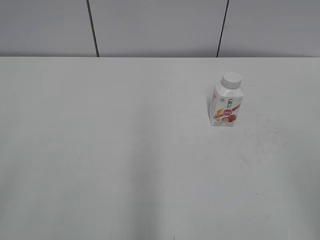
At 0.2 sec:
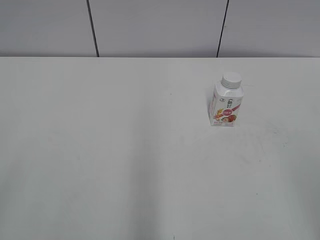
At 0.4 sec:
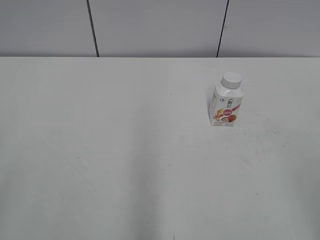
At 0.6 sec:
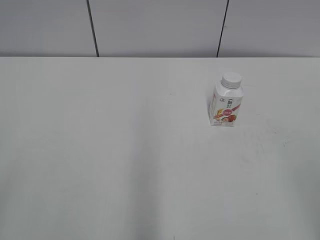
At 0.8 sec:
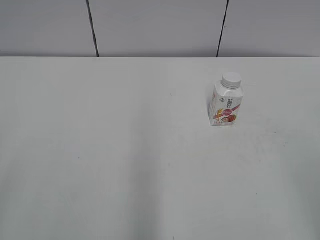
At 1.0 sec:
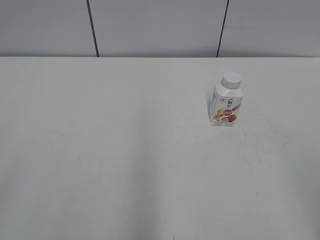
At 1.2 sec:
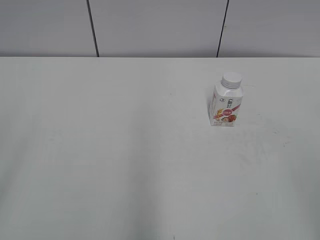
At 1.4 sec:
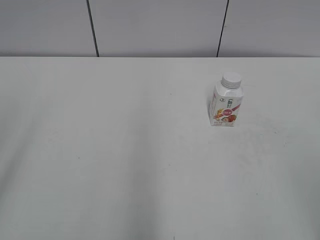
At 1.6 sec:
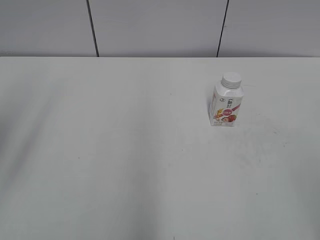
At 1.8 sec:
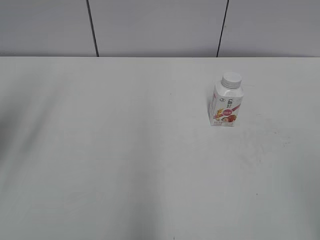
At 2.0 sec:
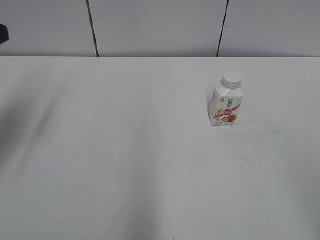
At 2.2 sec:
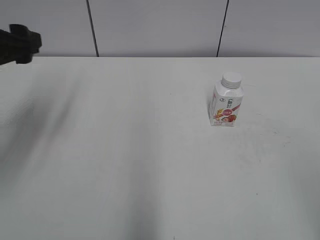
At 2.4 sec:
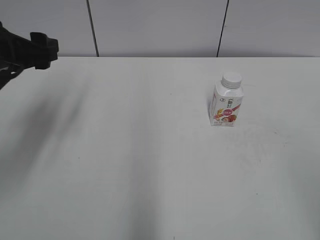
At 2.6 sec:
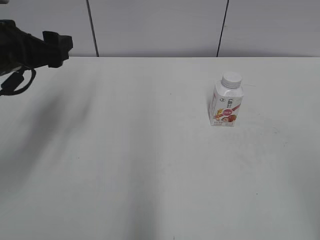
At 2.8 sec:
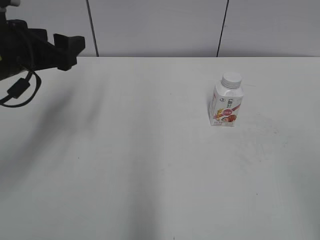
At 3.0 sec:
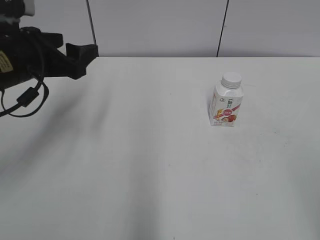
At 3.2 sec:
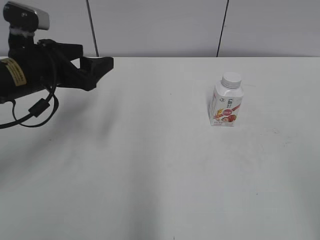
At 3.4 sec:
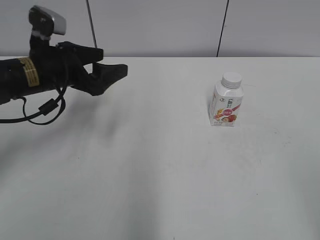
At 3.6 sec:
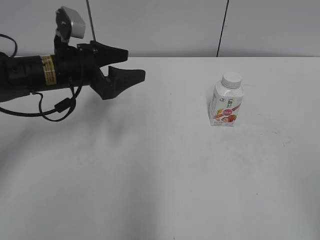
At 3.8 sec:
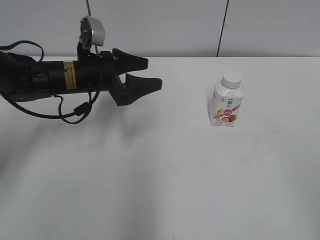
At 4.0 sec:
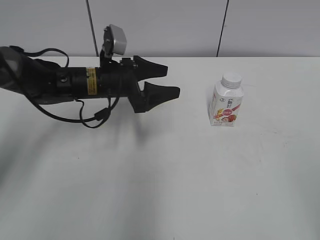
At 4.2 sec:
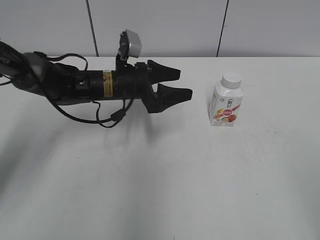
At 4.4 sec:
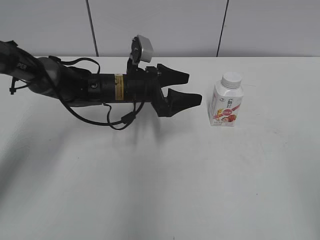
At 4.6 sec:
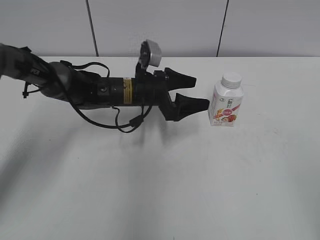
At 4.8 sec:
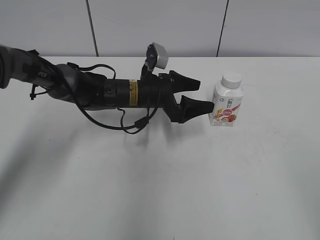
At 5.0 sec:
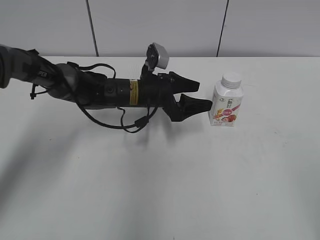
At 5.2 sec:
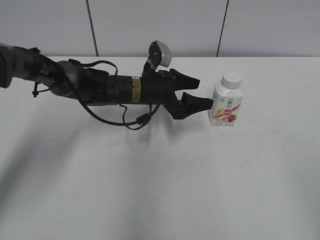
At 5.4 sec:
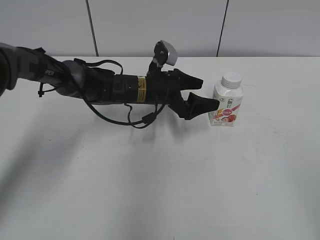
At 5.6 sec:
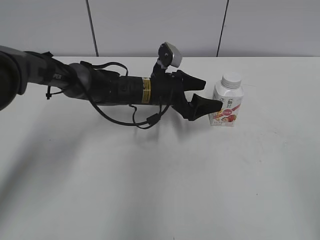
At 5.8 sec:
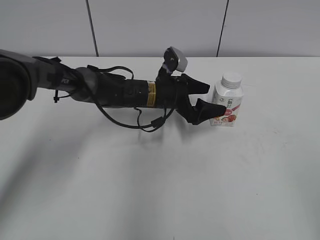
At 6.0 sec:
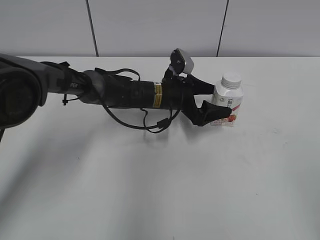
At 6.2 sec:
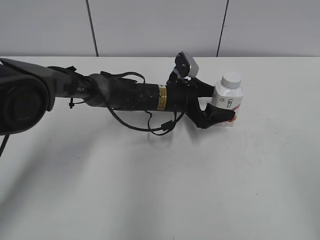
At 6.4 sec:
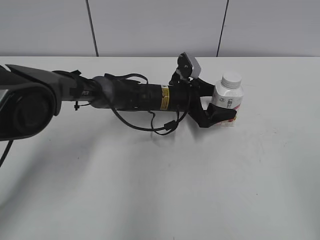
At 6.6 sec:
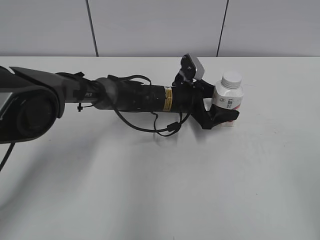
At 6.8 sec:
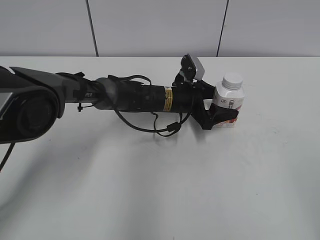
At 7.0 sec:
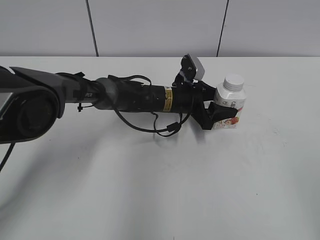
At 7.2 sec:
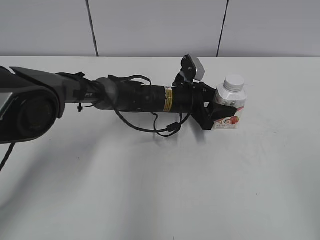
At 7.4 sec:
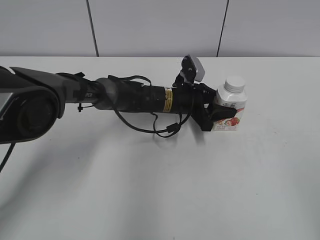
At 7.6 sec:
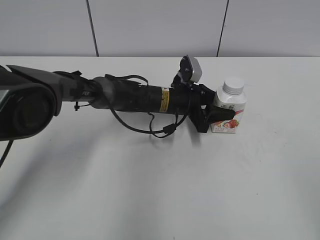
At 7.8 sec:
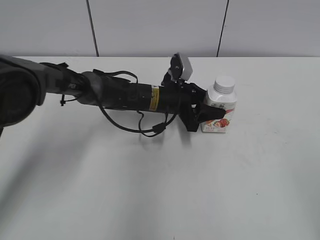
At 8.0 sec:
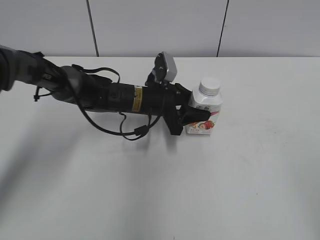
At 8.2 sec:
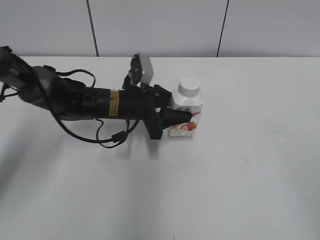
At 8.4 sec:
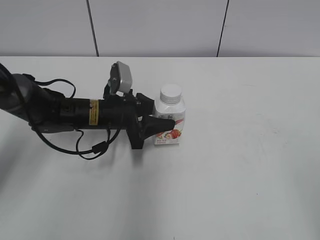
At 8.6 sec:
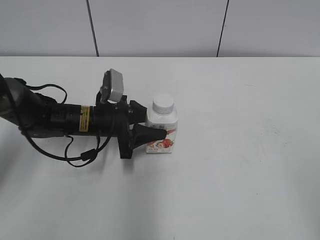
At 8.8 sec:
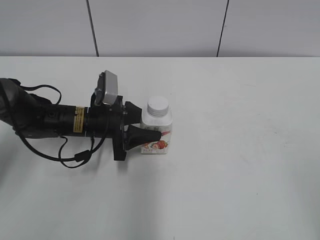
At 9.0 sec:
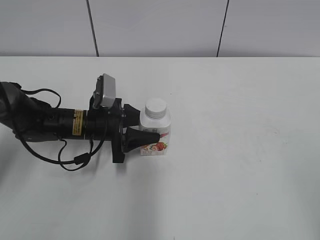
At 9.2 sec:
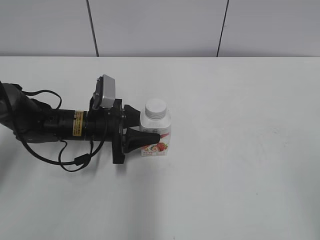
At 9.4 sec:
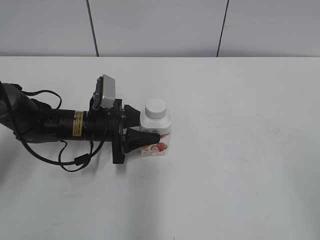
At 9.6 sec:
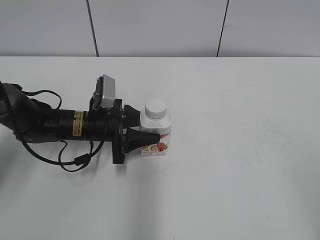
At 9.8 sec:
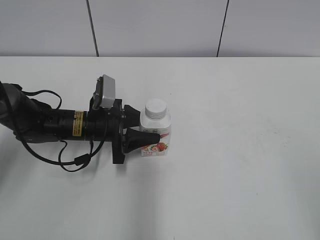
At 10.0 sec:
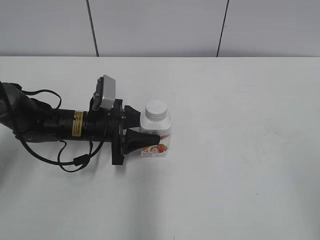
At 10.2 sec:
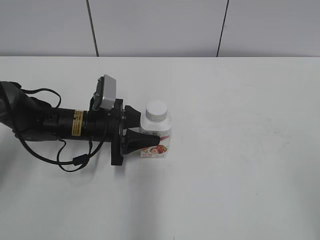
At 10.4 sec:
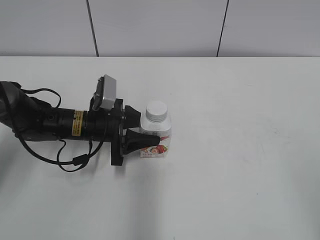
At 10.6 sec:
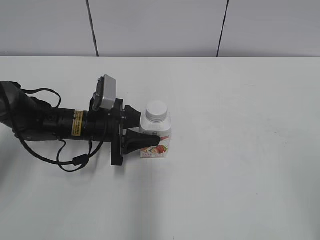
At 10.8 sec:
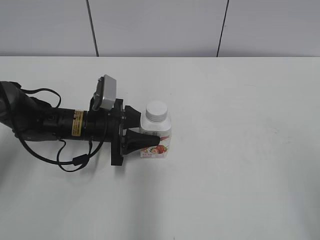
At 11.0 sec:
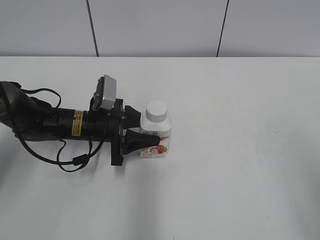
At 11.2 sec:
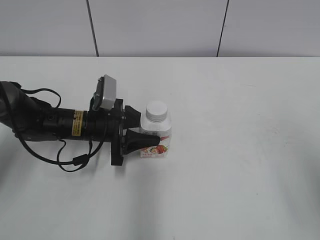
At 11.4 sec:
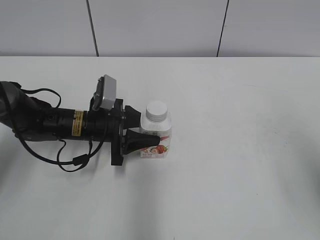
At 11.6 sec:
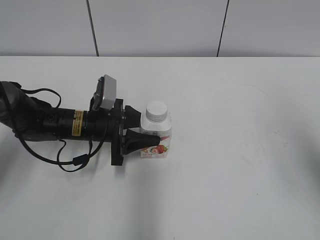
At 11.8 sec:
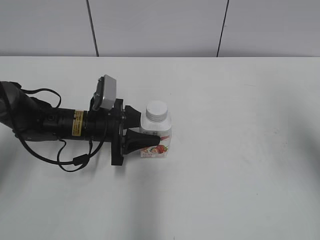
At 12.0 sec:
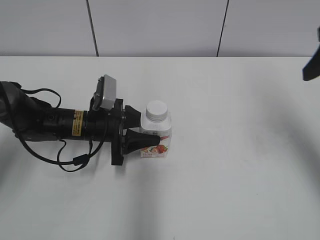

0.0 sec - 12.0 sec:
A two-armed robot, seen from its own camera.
Step, 0.0 sec - 7.0 sec: Grab the Yili Changqing with the left hand.
Step, 7.2 sec - 9.6 sec: Move the Yili Changqing from right to left.
1.6 sec - 3.0 sec: The left gripper travels forward, downward and to the right by approximately 25 cm.
3.0 sec - 4.4 sec: The left gripper is displaced to the right, downward and forward by about 20 cm.
4.4 sec - 6.0 sec: The left gripper is displaced to the right by approximately 5 cm.
6.0 sec - 7.6 sec: The left gripper closes up.
7.6 sec - 9.0 sec: The left gripper heads to the left and backward, covering some 20 cm.
9.0 sec - 10.4 sec: The two grippers keep their place.
10.4 sec - 12.0 sec: The right gripper goes roughly 25 cm forward.

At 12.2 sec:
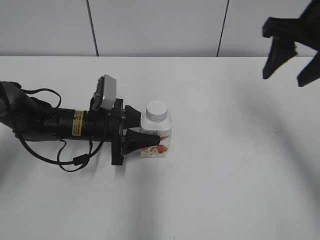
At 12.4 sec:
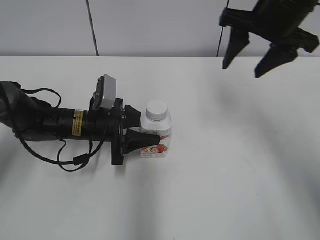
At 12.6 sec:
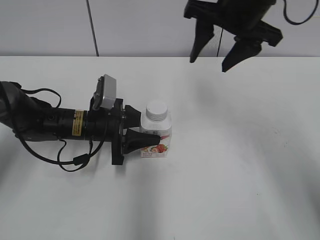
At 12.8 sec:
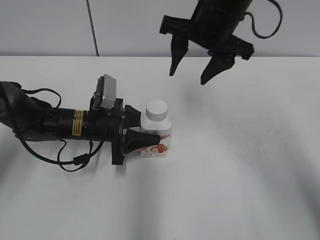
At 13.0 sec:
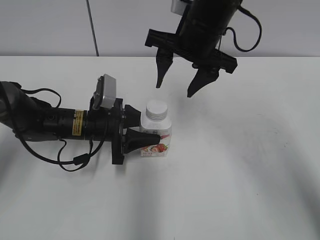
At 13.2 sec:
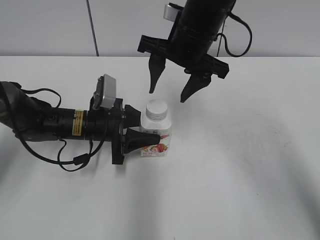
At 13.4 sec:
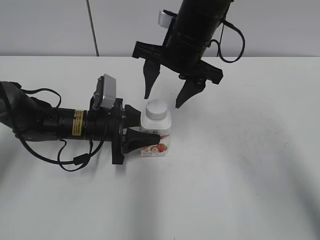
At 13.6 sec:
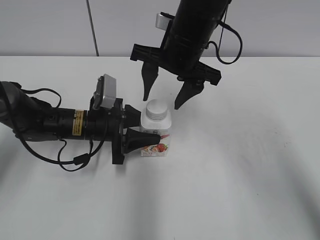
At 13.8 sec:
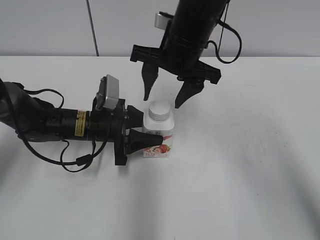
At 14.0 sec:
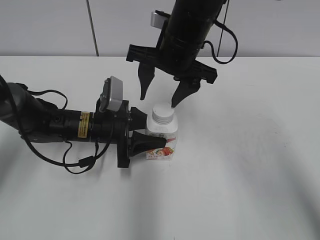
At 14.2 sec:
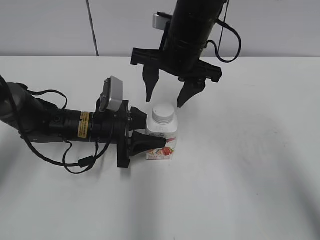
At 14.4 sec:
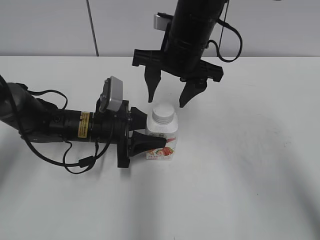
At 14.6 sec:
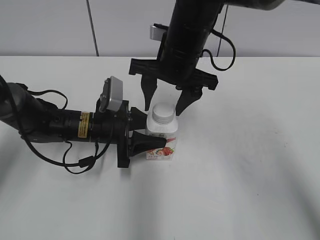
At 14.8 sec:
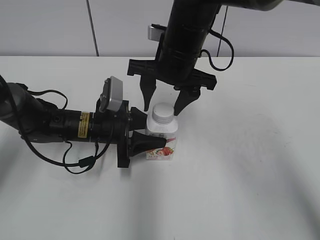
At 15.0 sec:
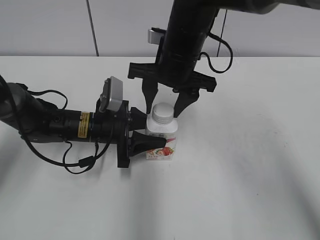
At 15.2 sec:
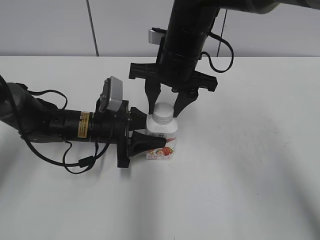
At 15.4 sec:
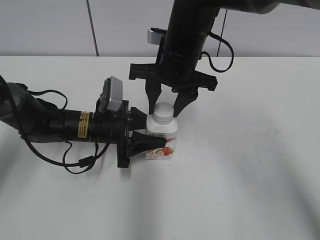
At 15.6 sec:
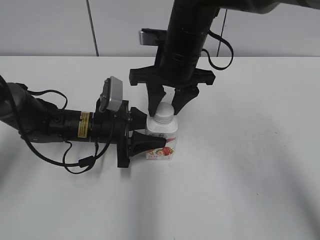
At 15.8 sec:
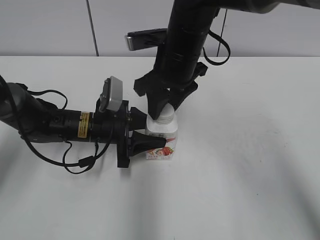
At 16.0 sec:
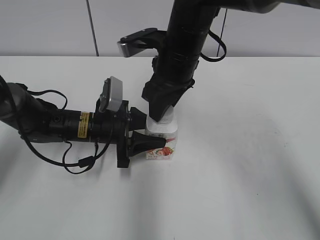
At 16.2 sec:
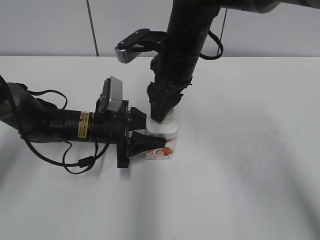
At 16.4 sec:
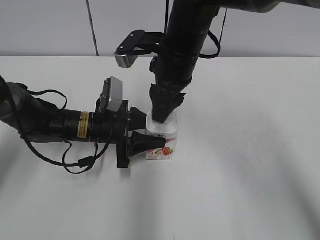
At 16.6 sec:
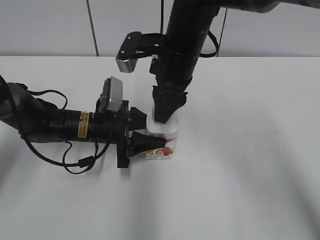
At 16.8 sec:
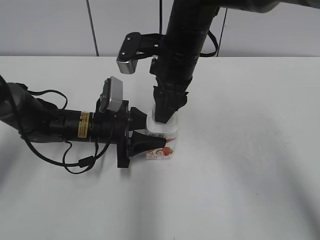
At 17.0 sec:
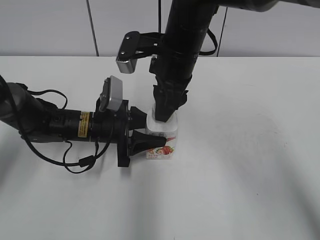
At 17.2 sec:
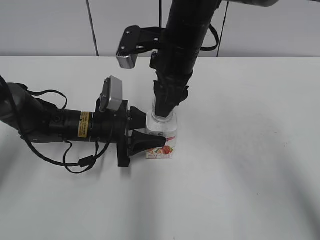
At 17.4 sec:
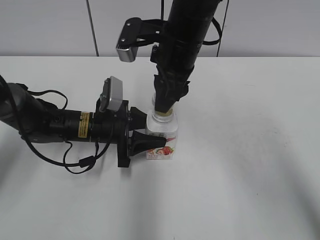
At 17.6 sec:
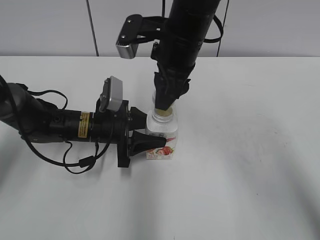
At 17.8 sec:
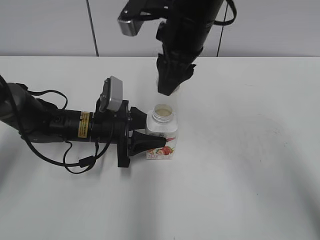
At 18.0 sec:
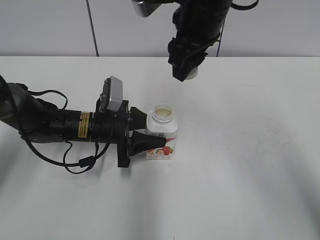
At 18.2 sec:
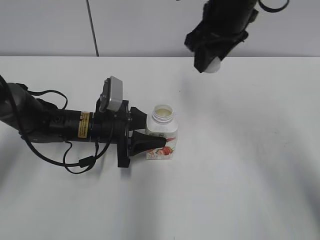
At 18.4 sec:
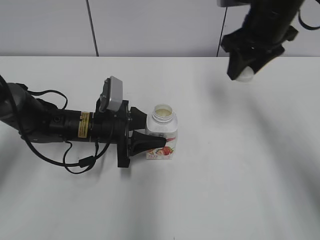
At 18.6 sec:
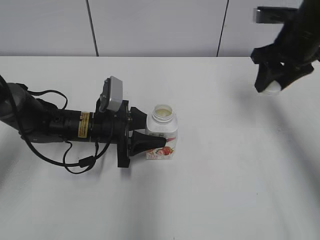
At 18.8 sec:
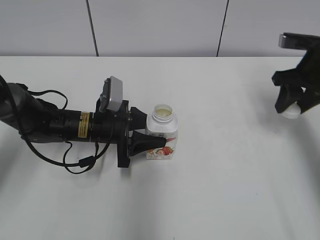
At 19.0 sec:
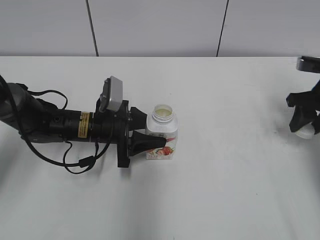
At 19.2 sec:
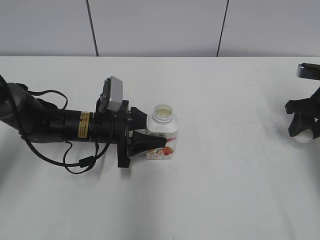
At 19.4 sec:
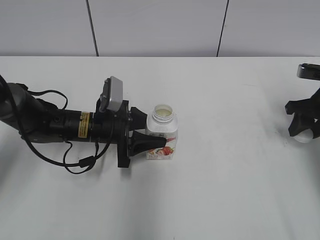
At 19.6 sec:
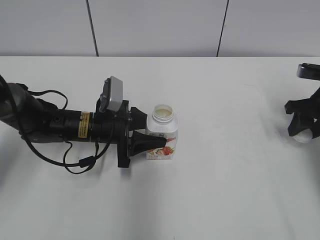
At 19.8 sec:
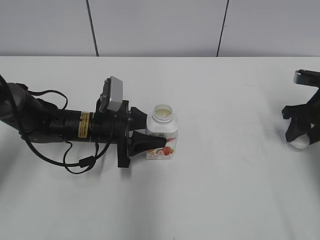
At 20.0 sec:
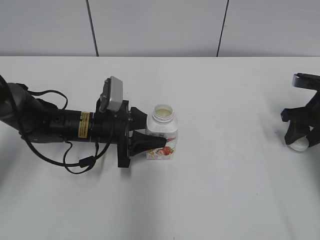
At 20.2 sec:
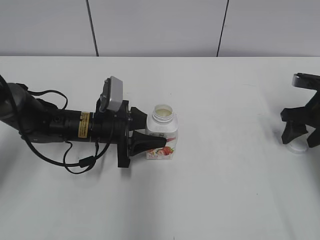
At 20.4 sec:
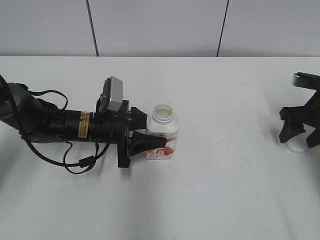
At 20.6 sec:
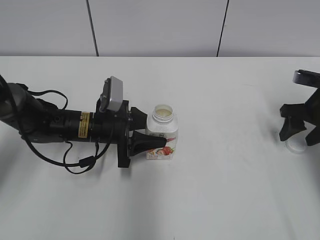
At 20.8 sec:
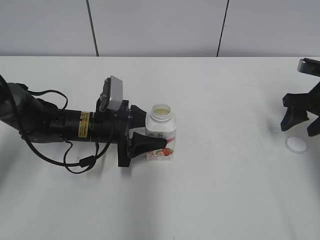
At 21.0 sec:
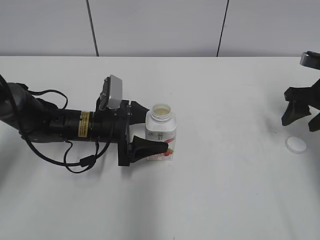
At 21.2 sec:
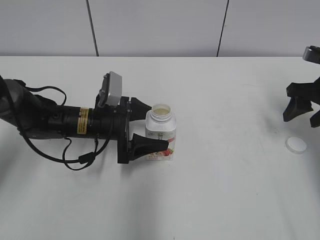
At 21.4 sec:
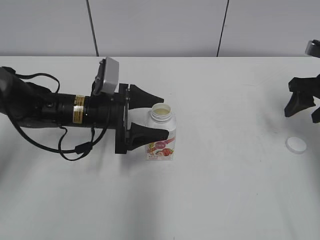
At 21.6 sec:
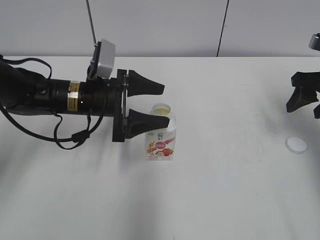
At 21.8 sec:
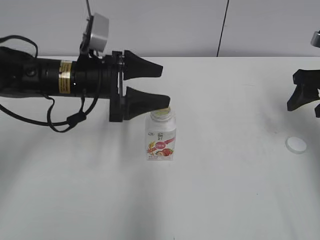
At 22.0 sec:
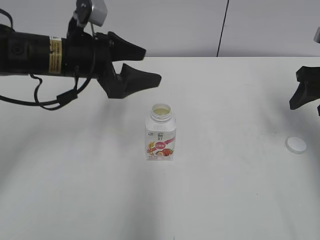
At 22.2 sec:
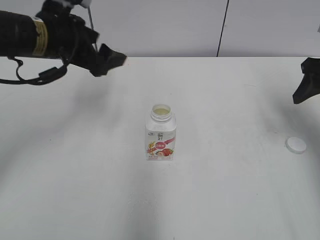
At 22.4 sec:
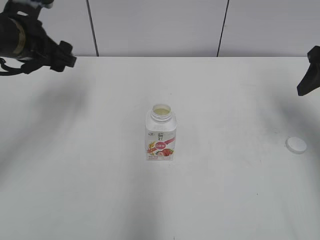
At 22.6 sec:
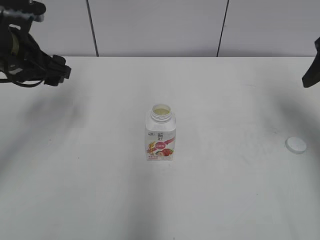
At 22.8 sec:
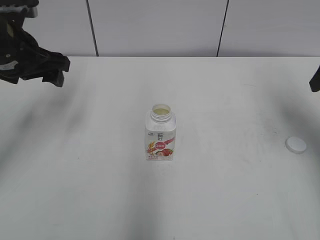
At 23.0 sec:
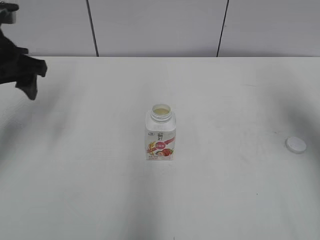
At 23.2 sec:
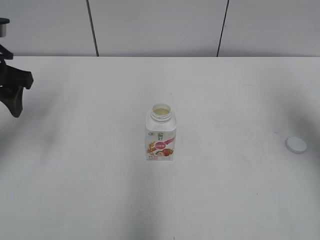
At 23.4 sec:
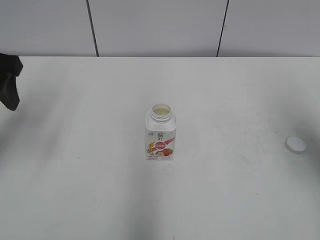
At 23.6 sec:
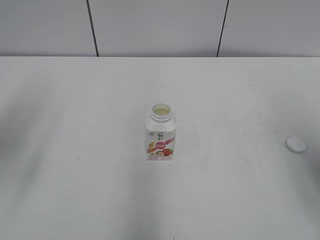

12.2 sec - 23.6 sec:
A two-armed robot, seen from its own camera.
Step, 17.2 sec - 20.2 sec: Place the bottle cap on the right.
12.2 sec - 13.6 sec: The right gripper shifts some 20 cm to the left.
13.6 sec - 15.0 sec: The right gripper closes.
15.0 sec - 16.4 sec: The right gripper closes.
16.4 sec - 17.8 sec: There are only small adjustments of the grippers.
17.8 sec - 19.4 sec: The right gripper is displaced to the right and downward by roughly 30 cm.
19.4 sec - 20.8 sec: The right gripper opens.
20.8 sec - 22.2 sec: The right gripper moves upward, roughly 10 cm, while the left gripper shifts approximately 15 cm upward, and opens up.
22.2 sec - 23.6 sec: The left gripper is displaced backward, to the left and upward by approximately 20 cm. Meanwhile the right gripper heads backward and upward, covering approximately 15 cm.
